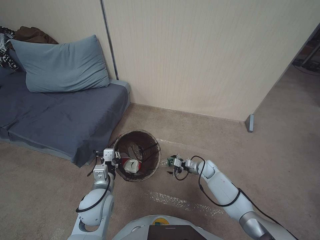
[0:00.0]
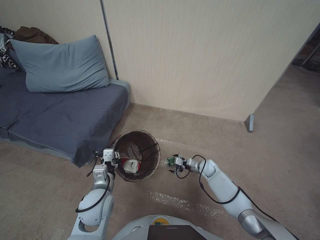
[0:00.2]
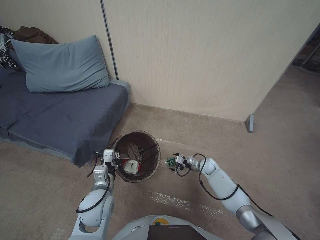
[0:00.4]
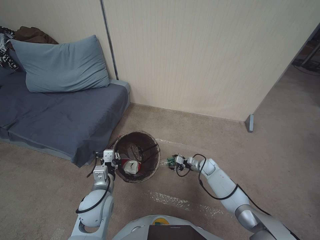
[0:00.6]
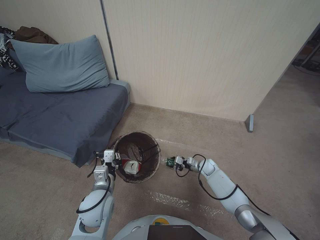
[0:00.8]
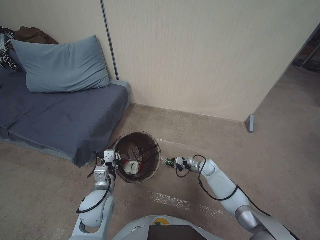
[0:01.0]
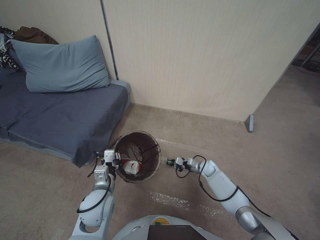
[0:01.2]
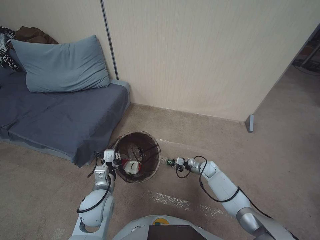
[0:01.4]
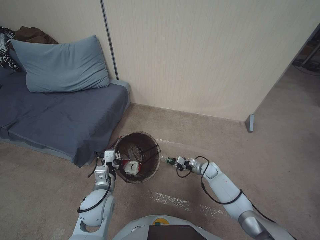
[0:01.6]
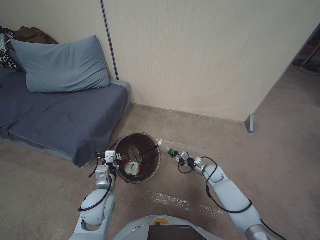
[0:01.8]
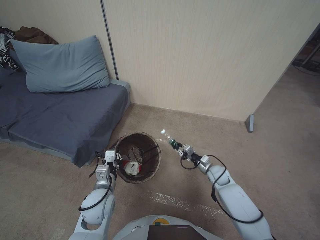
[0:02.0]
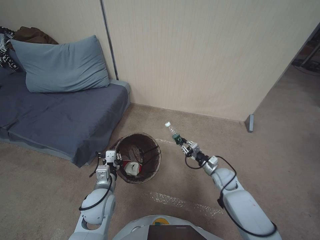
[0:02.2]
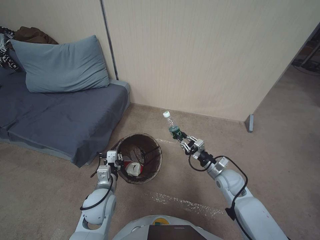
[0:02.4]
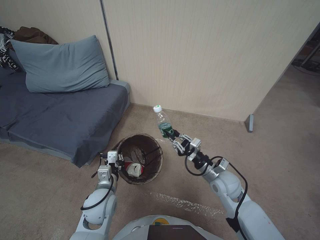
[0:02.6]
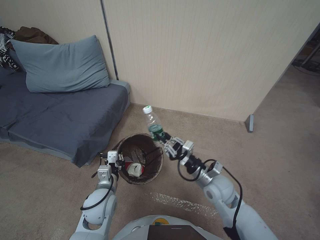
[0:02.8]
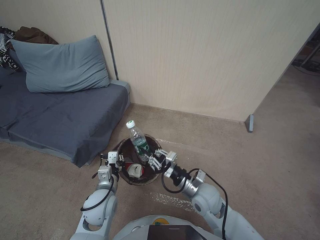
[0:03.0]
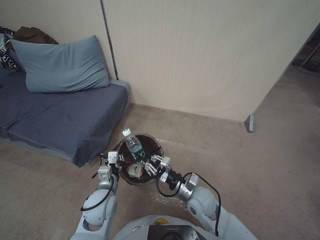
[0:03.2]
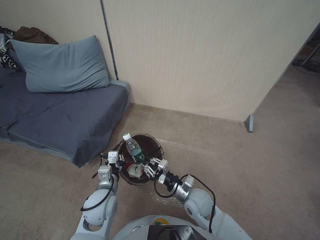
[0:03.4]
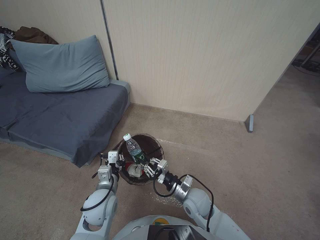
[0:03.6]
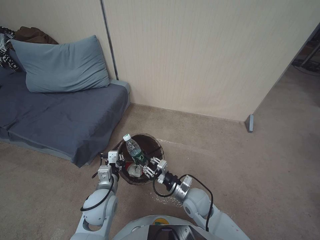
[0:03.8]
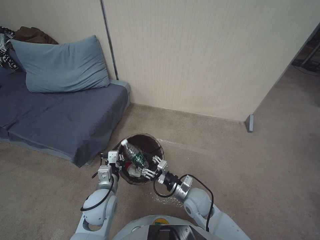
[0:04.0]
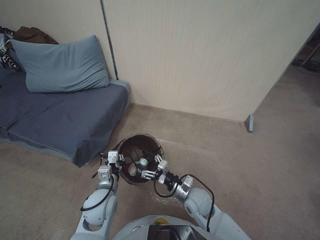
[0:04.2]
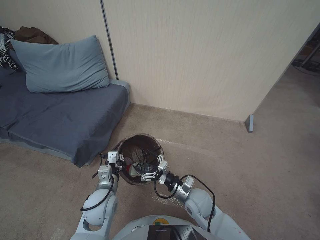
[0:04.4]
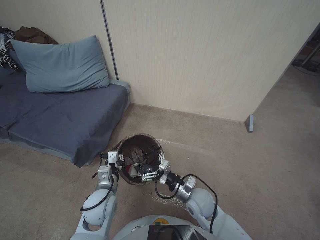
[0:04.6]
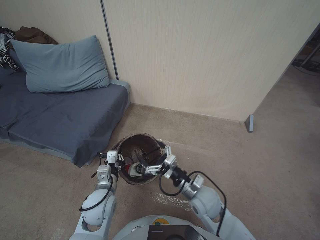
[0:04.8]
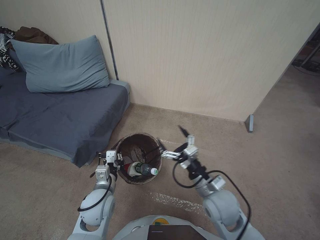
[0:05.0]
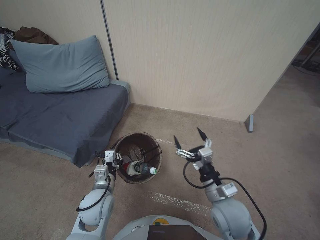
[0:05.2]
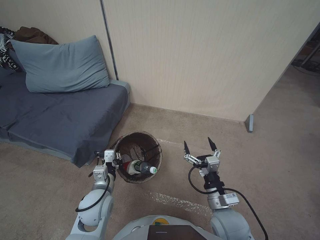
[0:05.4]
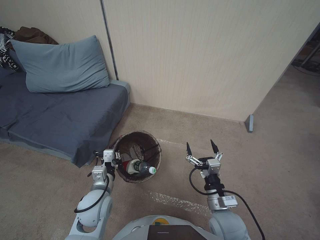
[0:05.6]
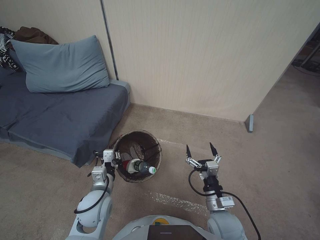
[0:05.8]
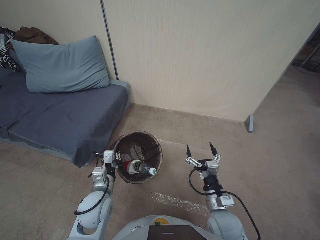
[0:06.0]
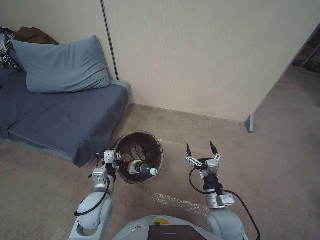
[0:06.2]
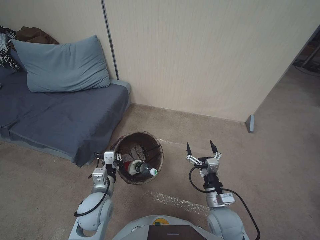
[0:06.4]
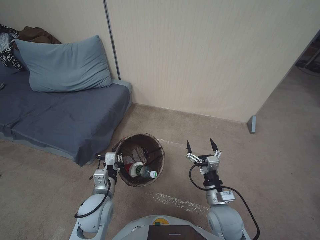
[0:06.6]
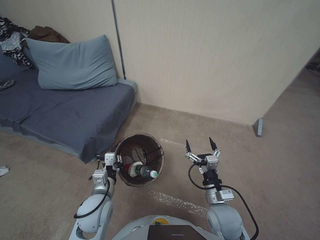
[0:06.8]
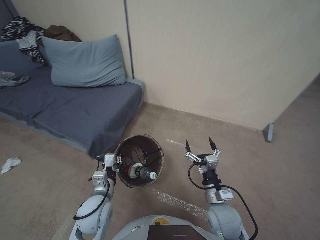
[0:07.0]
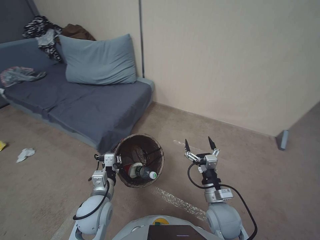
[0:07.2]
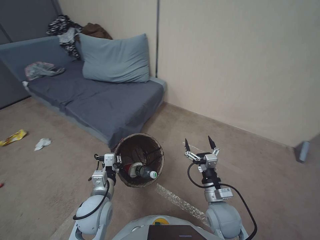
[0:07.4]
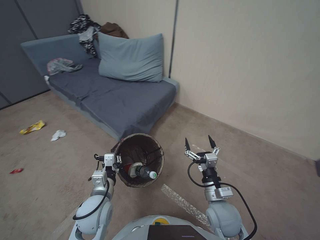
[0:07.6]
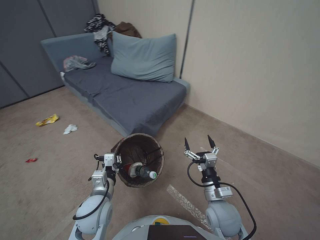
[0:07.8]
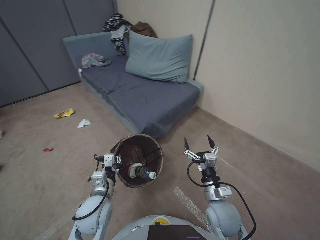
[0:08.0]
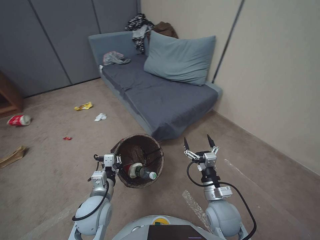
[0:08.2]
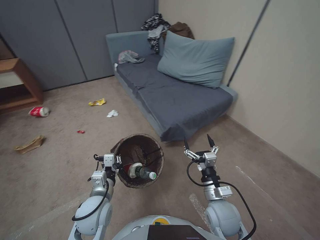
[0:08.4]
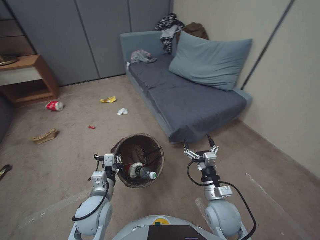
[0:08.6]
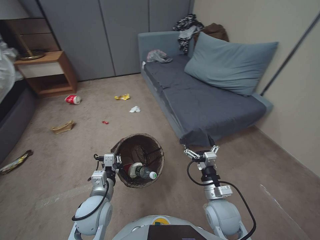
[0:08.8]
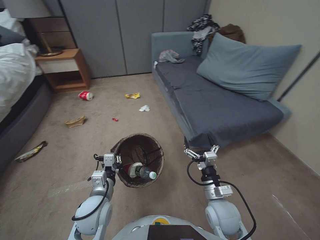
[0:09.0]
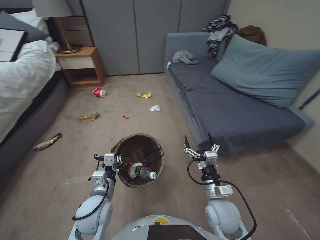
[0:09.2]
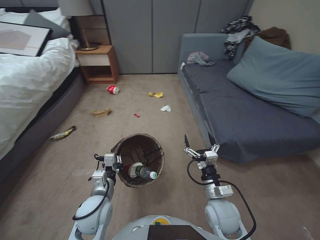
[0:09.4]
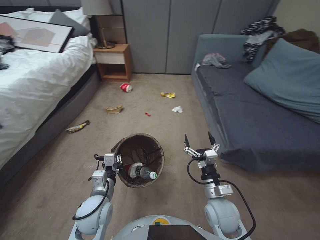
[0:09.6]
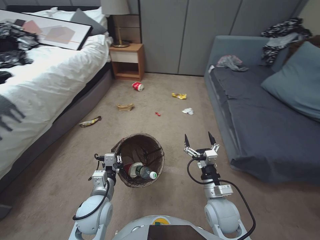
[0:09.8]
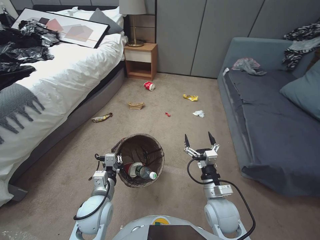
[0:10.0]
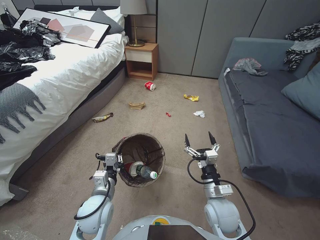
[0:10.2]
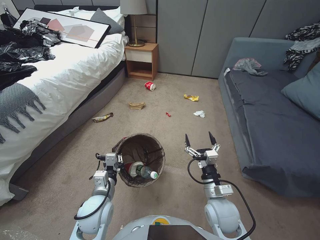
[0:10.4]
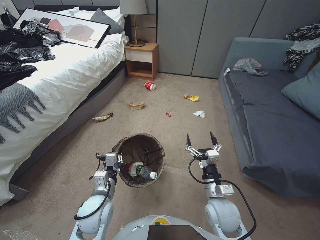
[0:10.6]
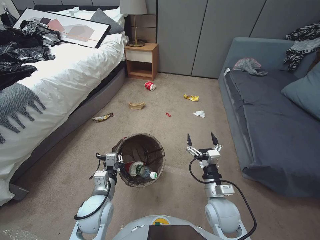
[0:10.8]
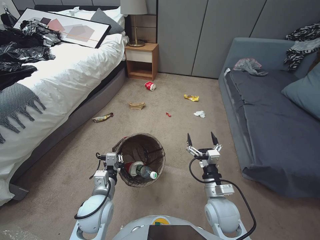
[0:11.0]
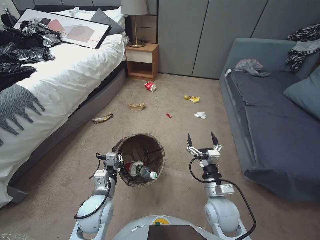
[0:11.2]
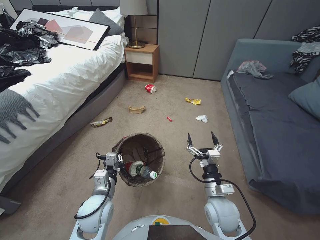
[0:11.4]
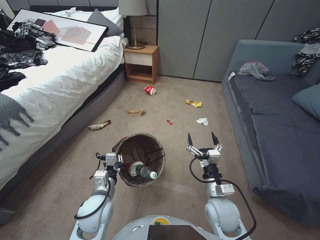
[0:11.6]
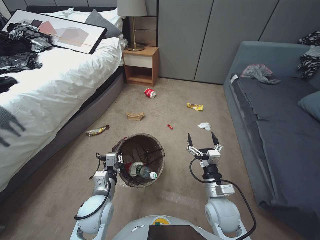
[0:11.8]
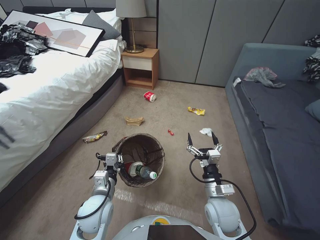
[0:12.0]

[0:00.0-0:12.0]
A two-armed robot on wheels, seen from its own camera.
Task of the whole recording: Pick up the trash bin, then pick up the garbage from the floor and place it into the trash bin.
0:00.0 to 0:01.6: The right gripper closes up.
0:01.6 to 0:03.0: The right gripper goes some 30 cm upward, backward and to the left.
0:03.0 to 0:04.4: The right gripper goes some 5 cm downward, and opens.
0:04.4 to 0:06.0: The right gripper goes approximately 10 cm backward and to the right, and travels upward and back again, roughly 10 cm each way.

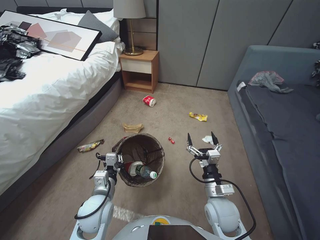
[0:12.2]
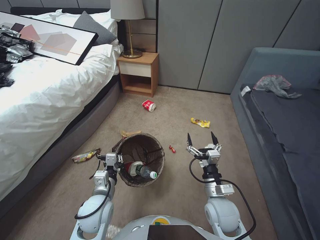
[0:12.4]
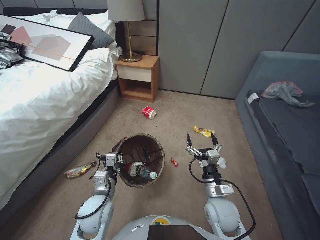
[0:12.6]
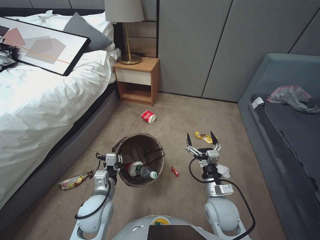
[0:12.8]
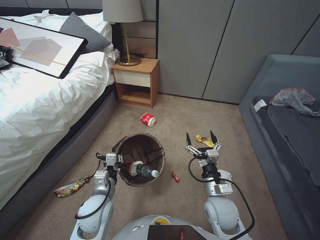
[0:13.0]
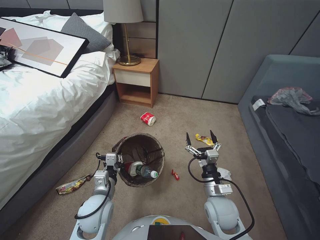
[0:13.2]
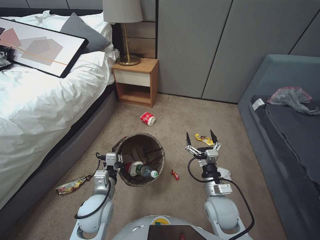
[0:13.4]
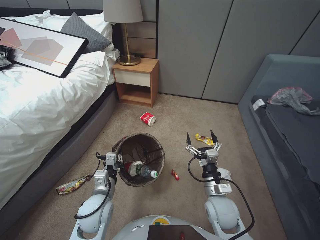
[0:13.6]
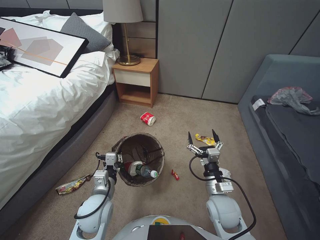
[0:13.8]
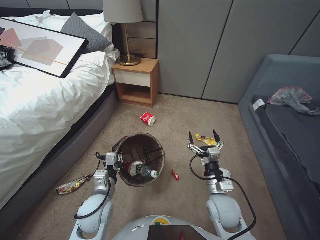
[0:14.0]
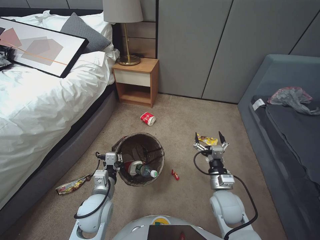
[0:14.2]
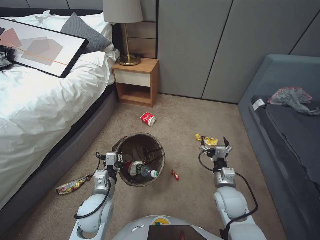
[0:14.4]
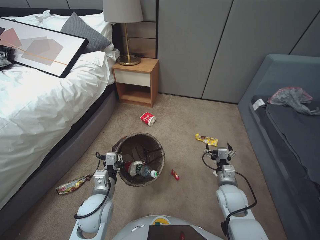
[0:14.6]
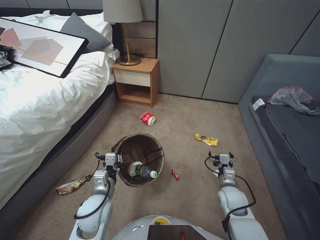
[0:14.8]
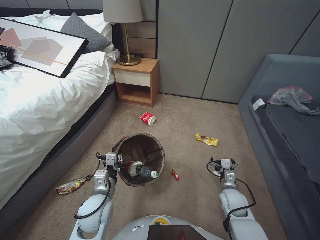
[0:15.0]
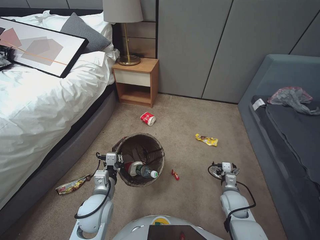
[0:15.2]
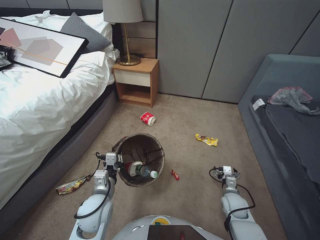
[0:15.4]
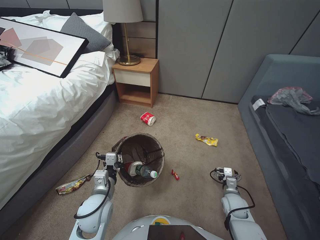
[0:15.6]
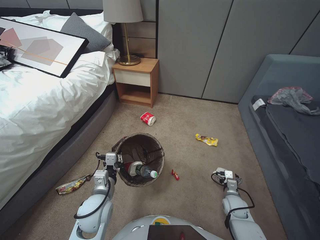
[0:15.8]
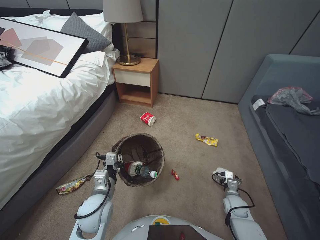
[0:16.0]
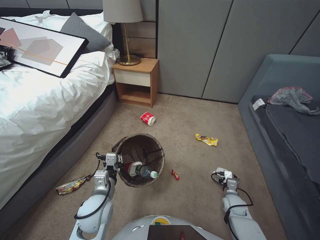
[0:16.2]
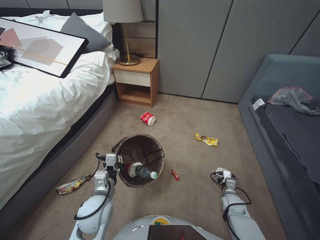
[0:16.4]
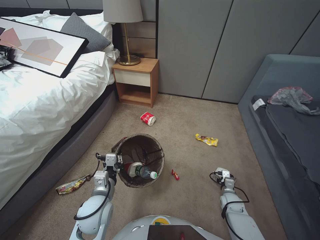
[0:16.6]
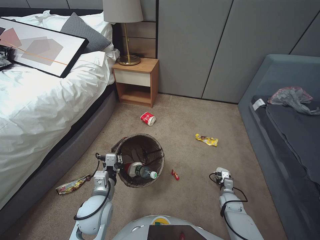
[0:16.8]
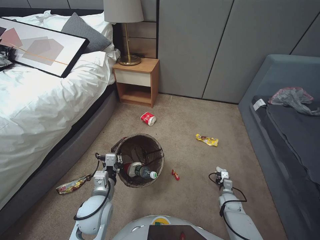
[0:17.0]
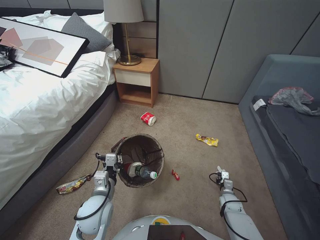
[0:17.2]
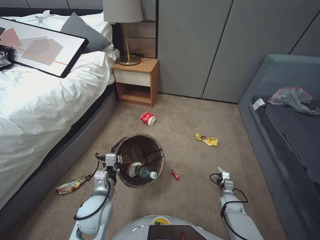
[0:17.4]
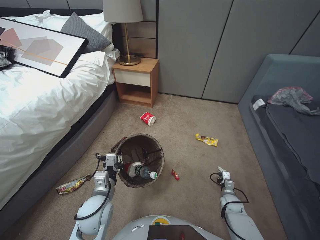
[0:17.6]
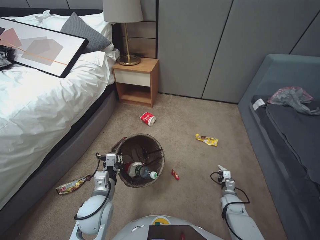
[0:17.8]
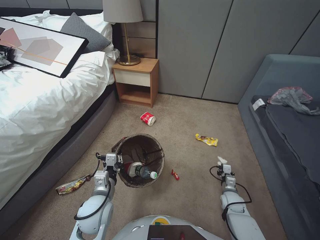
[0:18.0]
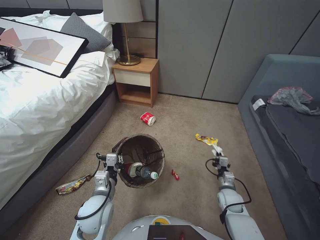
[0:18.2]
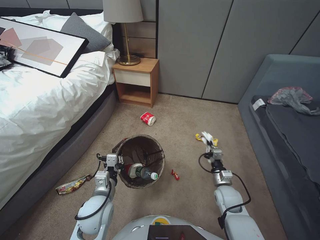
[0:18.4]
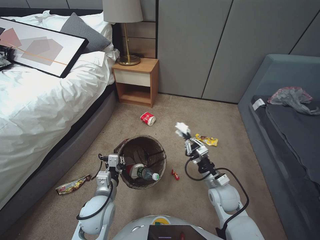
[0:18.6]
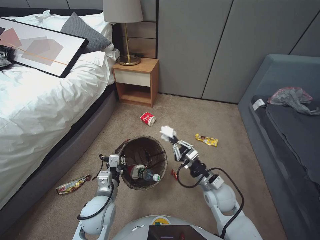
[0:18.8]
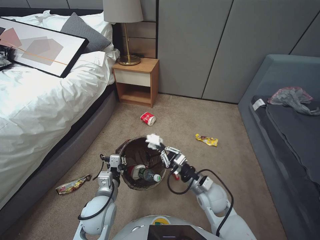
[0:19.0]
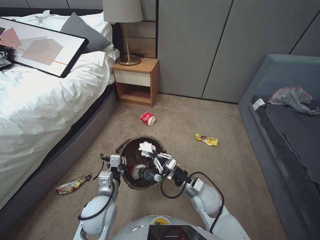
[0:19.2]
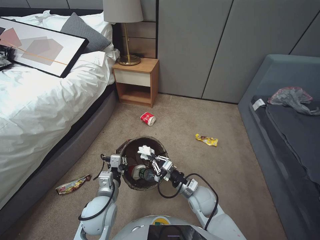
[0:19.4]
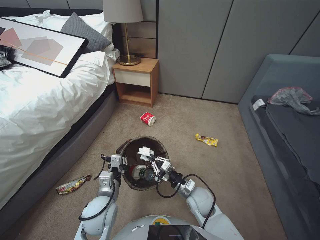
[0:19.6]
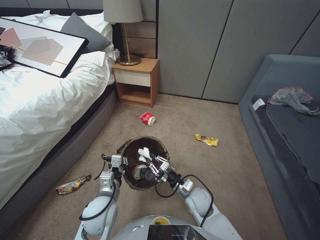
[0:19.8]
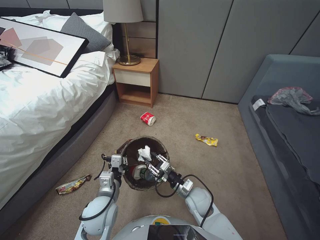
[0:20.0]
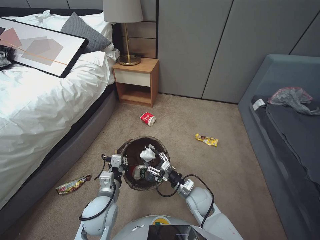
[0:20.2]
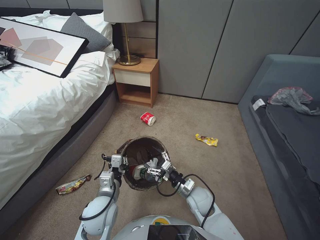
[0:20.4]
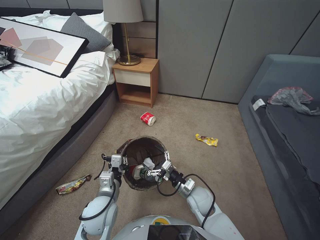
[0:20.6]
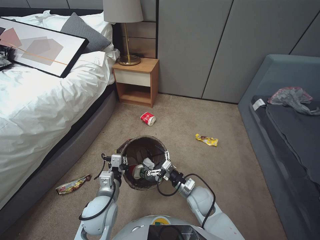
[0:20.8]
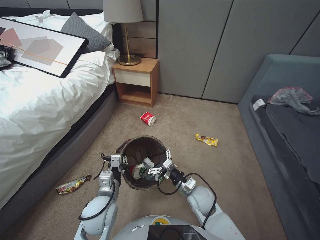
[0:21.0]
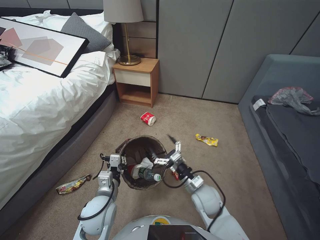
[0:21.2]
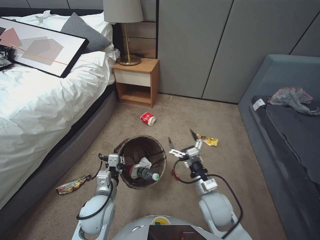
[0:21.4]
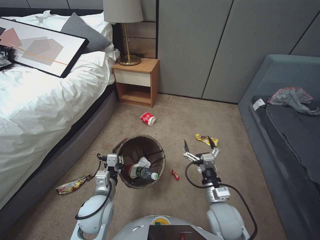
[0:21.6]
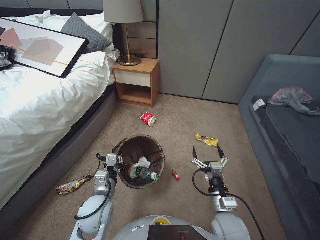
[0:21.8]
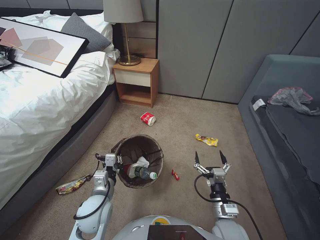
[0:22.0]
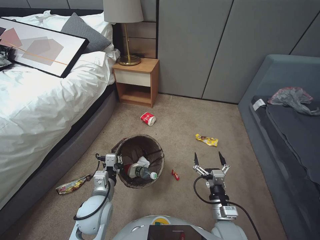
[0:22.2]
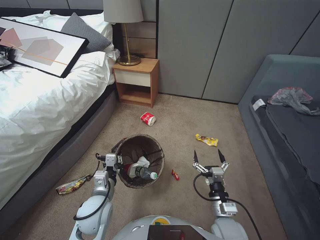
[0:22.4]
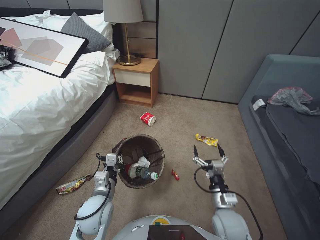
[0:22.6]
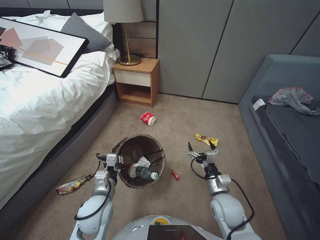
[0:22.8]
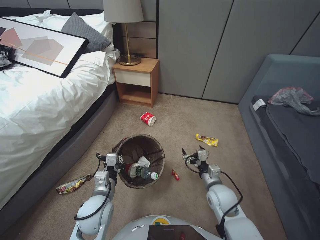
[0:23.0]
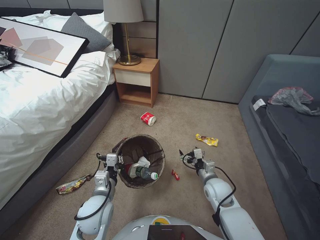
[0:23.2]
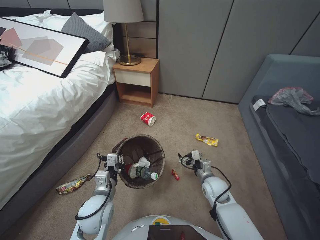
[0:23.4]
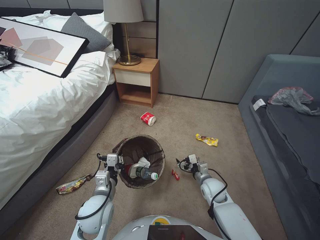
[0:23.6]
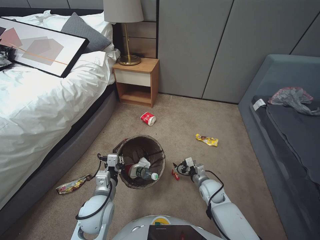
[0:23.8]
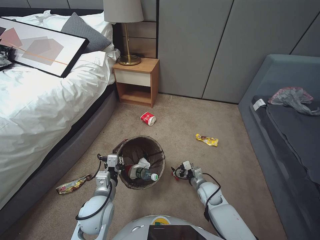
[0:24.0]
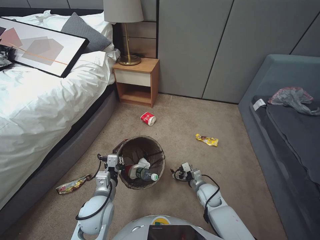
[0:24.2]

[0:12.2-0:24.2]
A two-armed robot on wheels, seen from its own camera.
Task of the whole recording: Pick up the trash bin, then pick up the garbage from the floor and place it into the trash bin.
0:13.8 to 0:15.2: The right gripper travels to the right and downward by roughly 15 cm.
0:15.2 to 0:16.6: The right gripper travels downward by roughly 10 cm.
0:16.6 to 0:18.2: The right gripper closes up.
0:18.2 to 0:19.8: The right gripper heads to the left and upward, covering roughly 20 cm.
0:19.8 to 0:21.2: The right gripper opens.
0:21.2 to 0:22.6: The right gripper is displaced backward and to the right by roughly 10 cm.
0:22.6 to 0:24.2: The right gripper is displaced forward and downward by roughly 15 cm.
